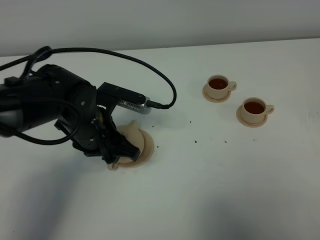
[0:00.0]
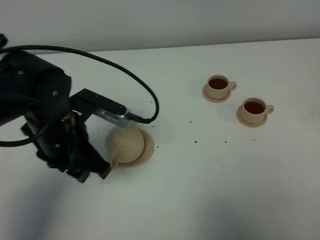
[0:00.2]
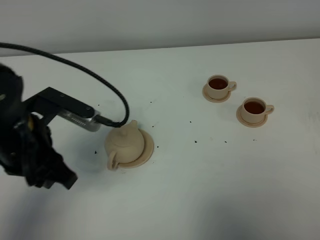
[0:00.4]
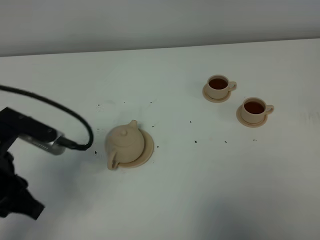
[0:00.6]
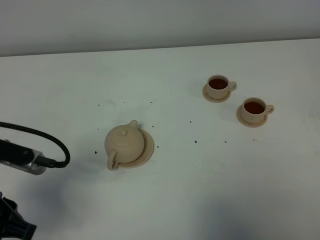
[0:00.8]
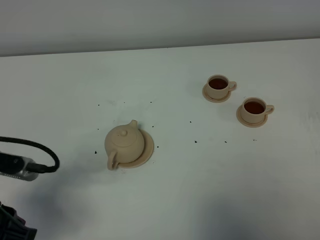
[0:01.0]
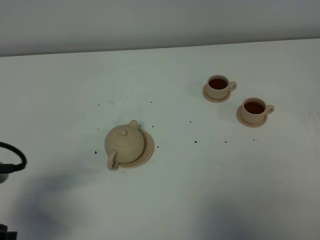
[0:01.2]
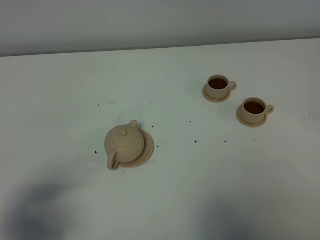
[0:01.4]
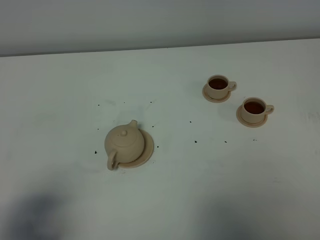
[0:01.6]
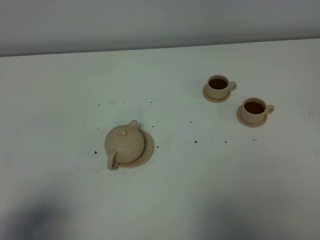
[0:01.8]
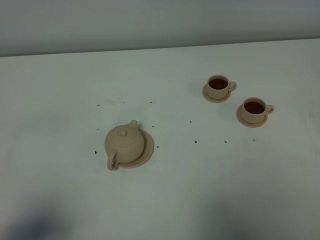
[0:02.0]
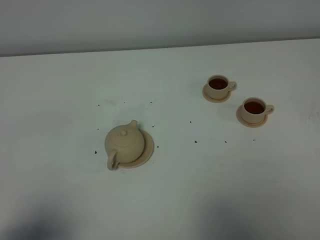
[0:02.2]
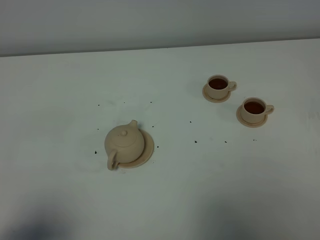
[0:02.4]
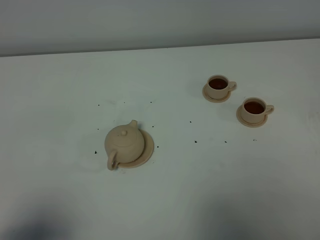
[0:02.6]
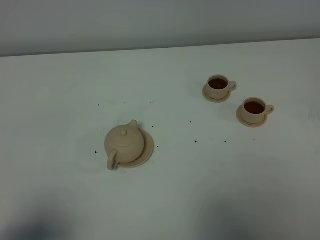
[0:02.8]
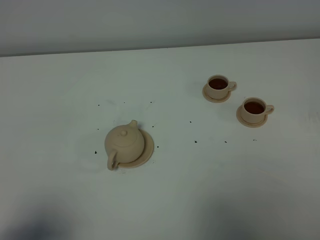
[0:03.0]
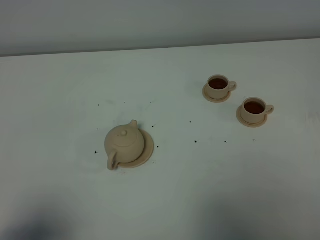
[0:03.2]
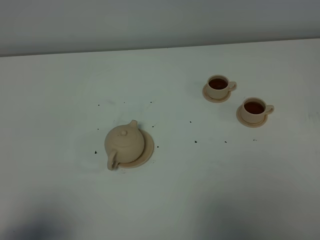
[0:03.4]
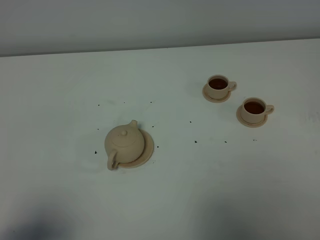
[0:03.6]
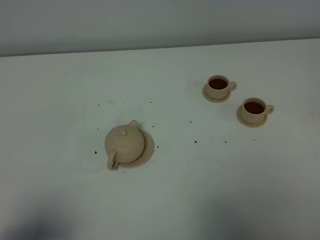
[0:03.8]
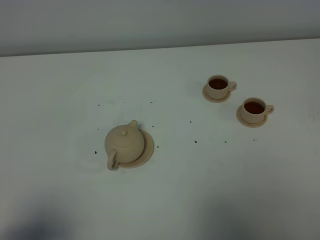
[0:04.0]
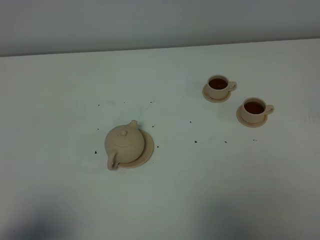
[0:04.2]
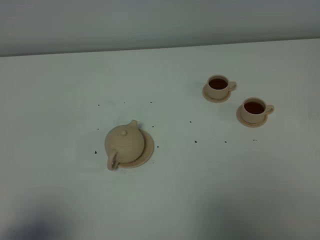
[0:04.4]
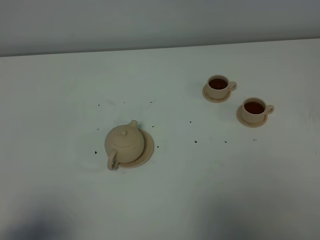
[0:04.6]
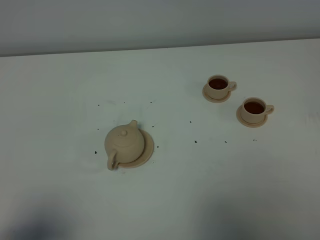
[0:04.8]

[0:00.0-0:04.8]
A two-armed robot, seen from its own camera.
Task of the whole recording: grasp the brown teapot and pour the tea into the two brown teacups one by one, put the brown teapot back in its original place.
0:00.0 to 0:01.6: The left gripper travels backward and to the left by roughly 30 cm.
0:03.2 to 0:04.8: Neither gripper changes place.

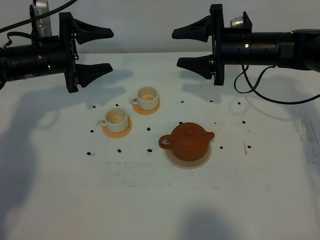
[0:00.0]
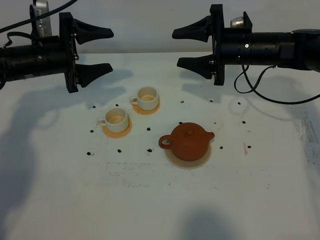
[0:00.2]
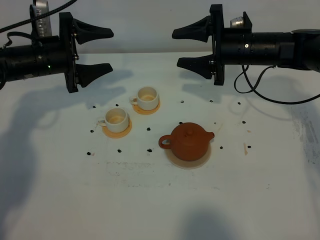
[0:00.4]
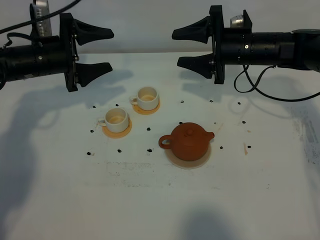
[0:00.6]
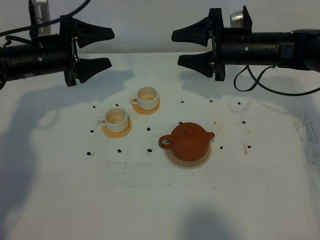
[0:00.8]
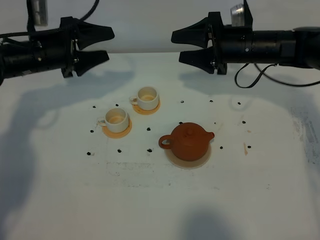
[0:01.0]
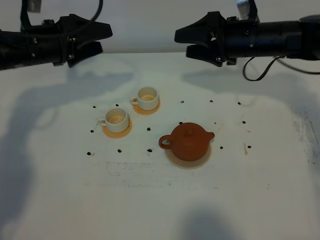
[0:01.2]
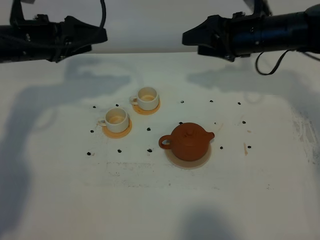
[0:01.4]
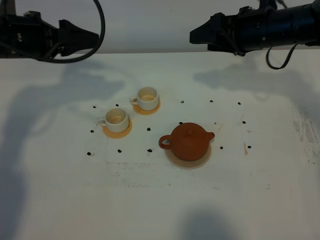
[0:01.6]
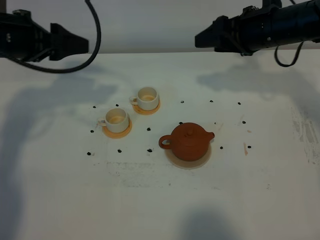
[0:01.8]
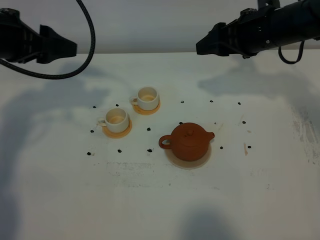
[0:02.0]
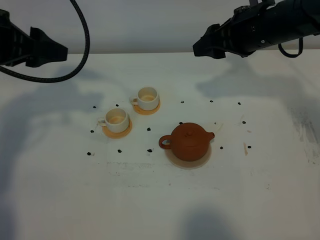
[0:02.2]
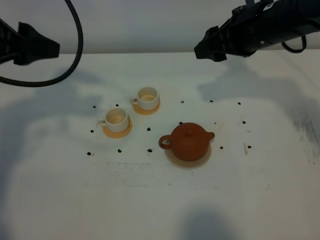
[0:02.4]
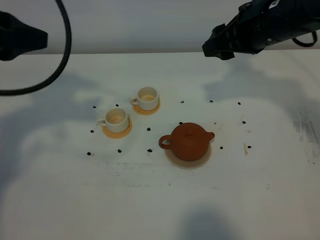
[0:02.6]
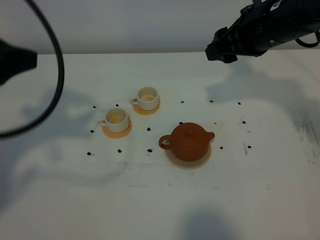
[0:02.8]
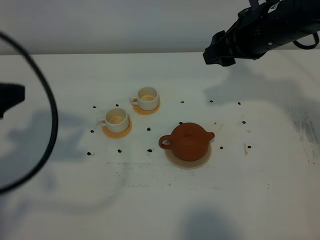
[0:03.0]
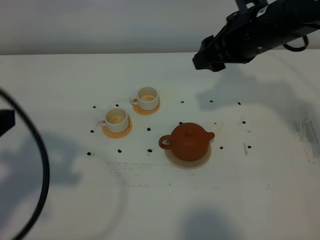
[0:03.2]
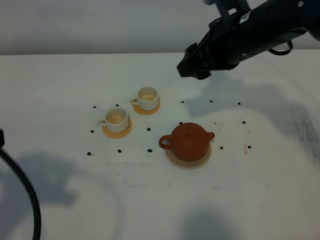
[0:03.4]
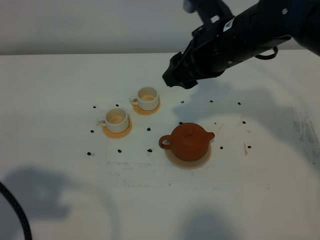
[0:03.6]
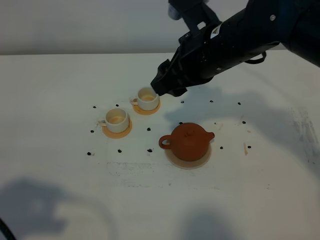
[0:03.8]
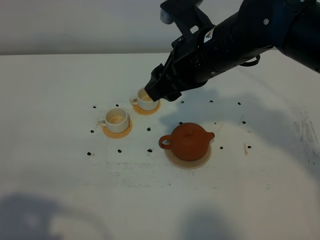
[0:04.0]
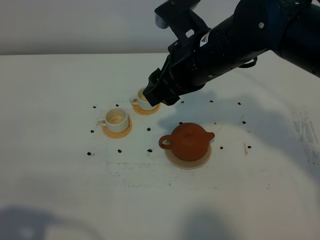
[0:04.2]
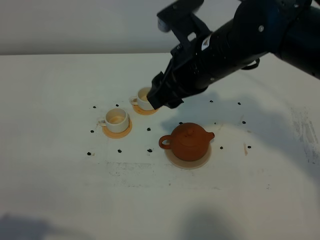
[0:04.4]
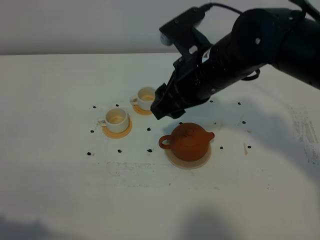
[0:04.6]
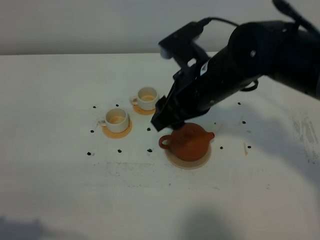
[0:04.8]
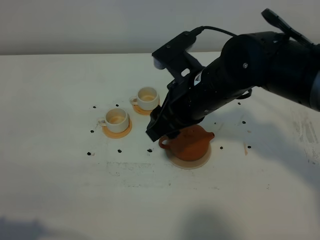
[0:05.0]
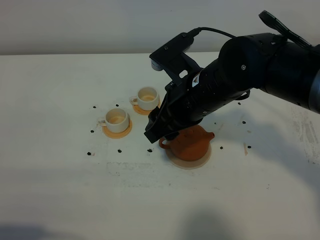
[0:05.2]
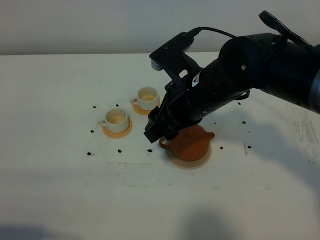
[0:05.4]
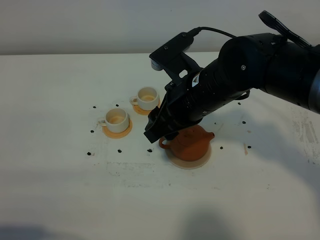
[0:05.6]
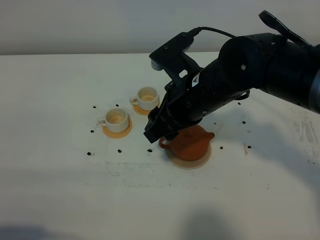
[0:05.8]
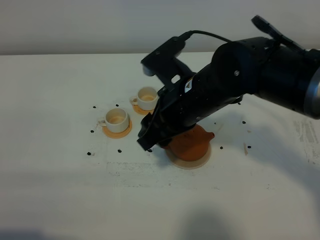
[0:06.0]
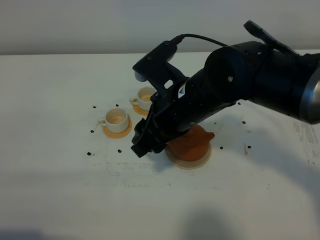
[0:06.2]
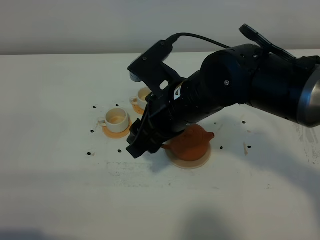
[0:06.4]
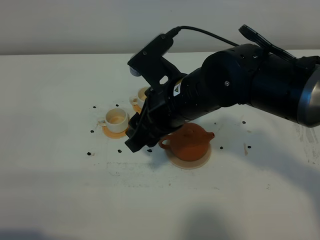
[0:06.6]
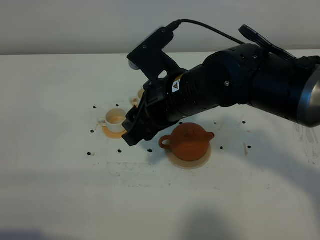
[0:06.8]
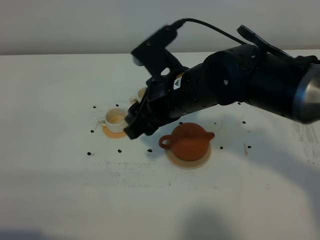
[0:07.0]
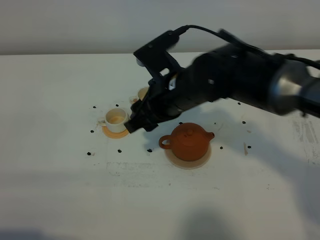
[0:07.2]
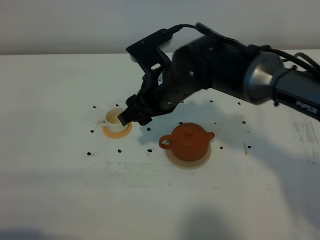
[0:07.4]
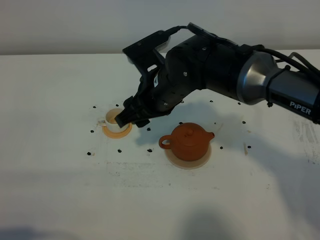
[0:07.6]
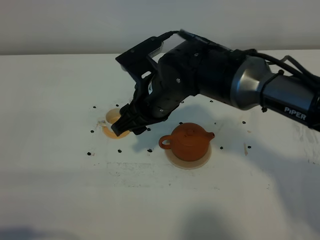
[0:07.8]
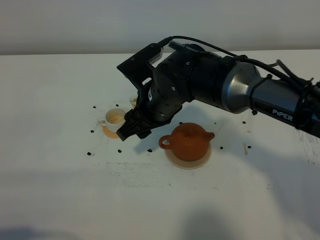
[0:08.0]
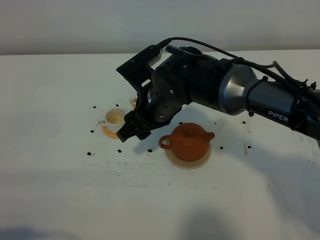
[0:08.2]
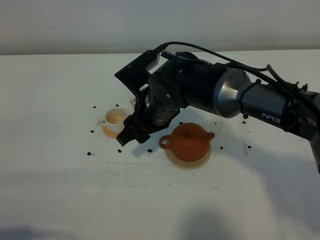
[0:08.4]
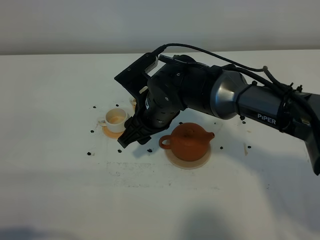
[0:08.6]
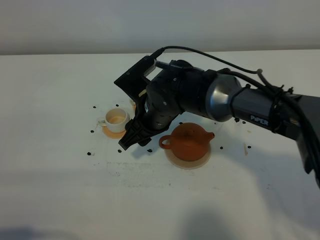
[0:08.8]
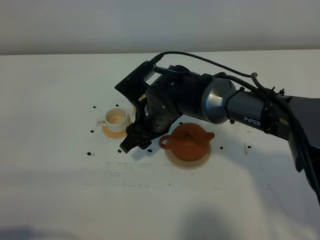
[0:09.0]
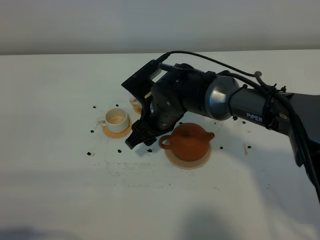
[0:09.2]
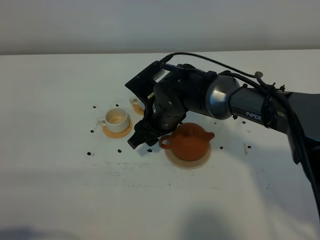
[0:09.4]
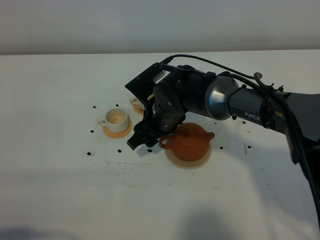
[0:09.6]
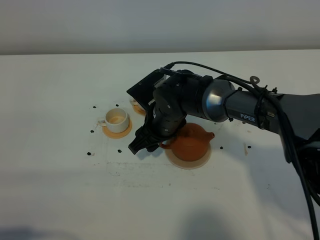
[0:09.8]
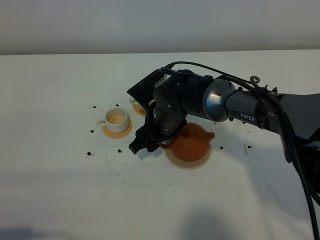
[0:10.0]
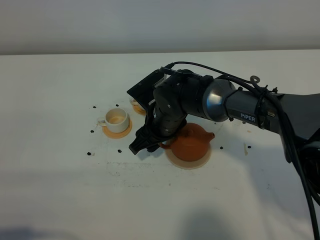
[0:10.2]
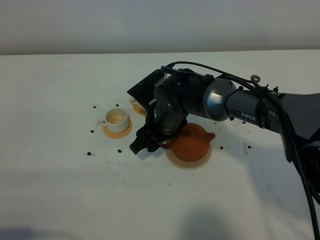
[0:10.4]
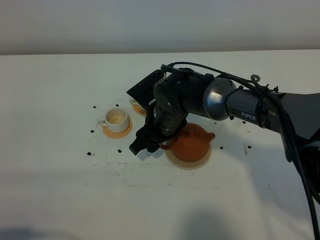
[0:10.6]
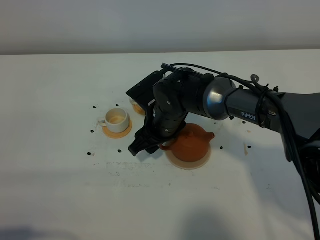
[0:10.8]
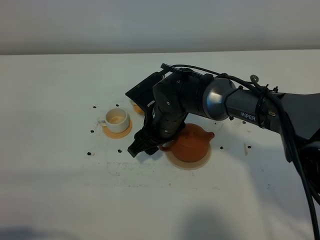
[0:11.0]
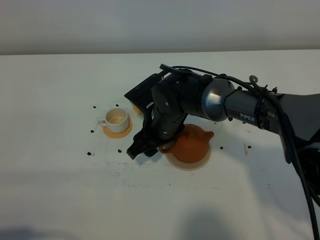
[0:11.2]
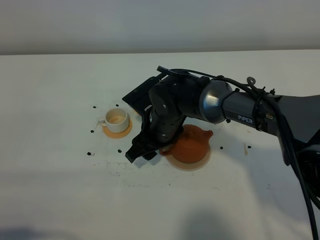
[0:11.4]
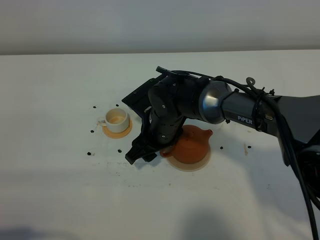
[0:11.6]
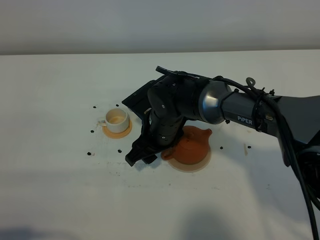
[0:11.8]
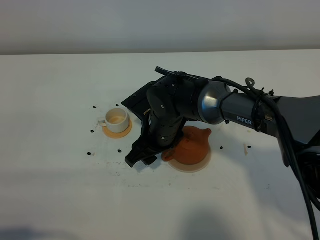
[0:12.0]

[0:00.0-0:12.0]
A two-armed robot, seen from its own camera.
Task of the whole recording: grasp the brown teapot and pour the tea into the two white teacups one by one, put the brown teapot back in its original place.
0:00.0 to 0:01.6: The left gripper heads upward, covering some 10 cm. Meanwhile the right gripper travels upward by about 5 cm.
0:01.6 to 0:03.0: The right gripper moves backward, about 5 cm. Meanwhile the left gripper heads backward, covering approximately 20 cm, and closes its fingers.
0:03.0 to 0:04.4: The left gripper heads backward and downward, covering about 20 cm; the right gripper heads to the left and backward, covering about 10 cm.
0:04.4 to 0:06.0: The right gripper moves roughly 5 cm; the left gripper closes up.
0:06.0 to 0:07.6: The right gripper shifts by approximately 5 cm.
0:07.6 to 0:09.0: The right gripper moves downward, approximately 5 cm.
0:09.0 to 0:12.0: There are only small adjustments of the grippers.

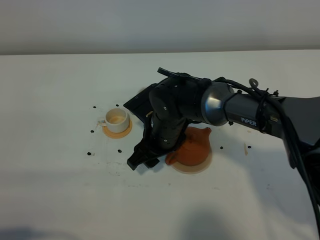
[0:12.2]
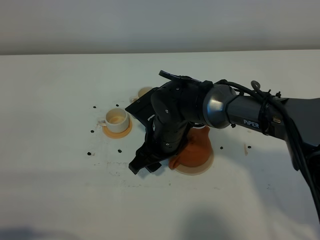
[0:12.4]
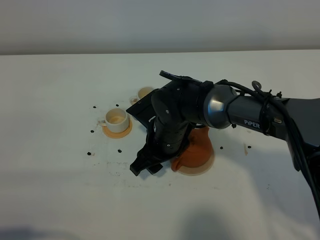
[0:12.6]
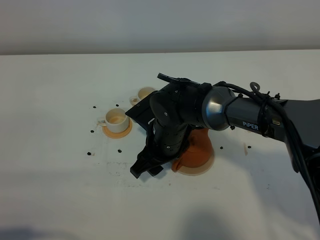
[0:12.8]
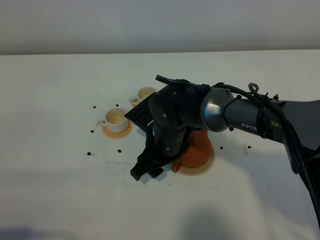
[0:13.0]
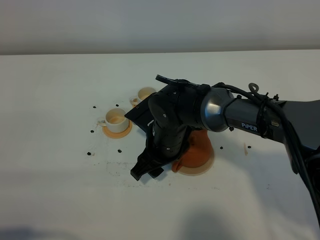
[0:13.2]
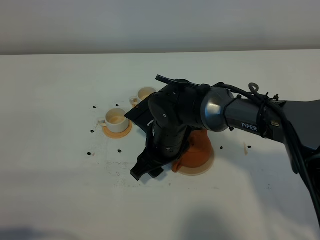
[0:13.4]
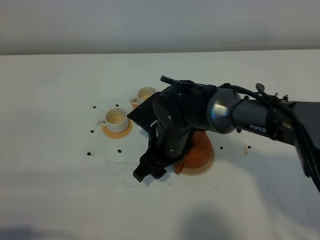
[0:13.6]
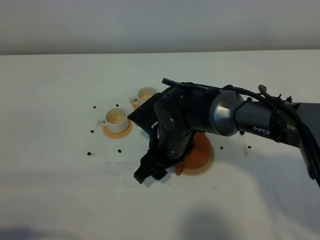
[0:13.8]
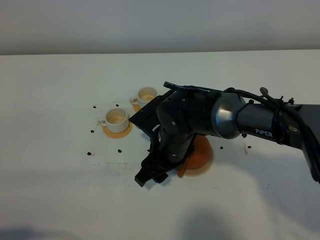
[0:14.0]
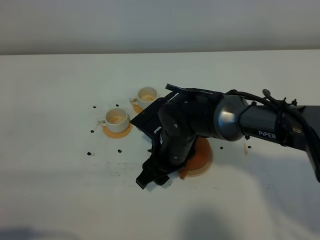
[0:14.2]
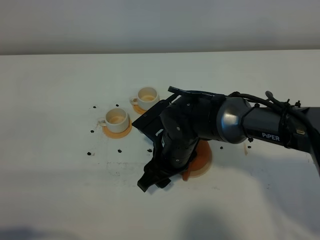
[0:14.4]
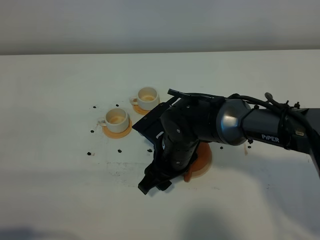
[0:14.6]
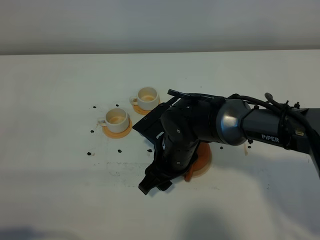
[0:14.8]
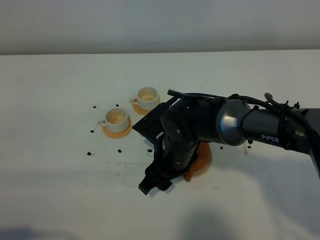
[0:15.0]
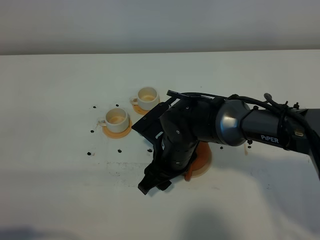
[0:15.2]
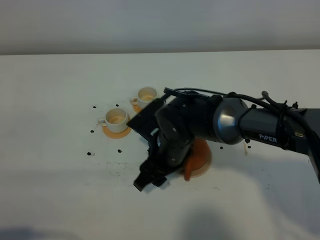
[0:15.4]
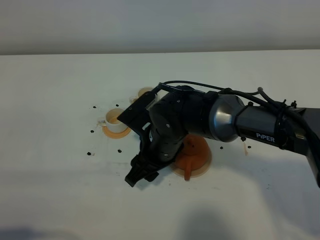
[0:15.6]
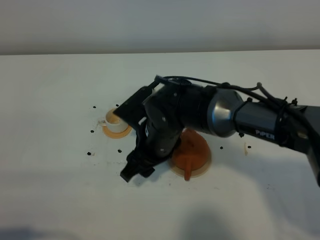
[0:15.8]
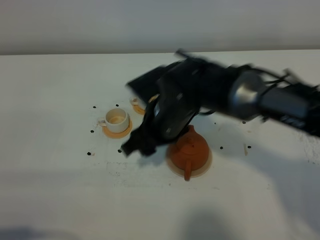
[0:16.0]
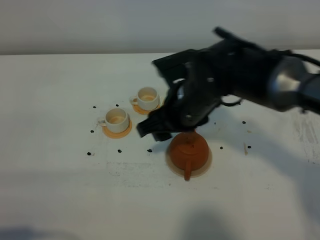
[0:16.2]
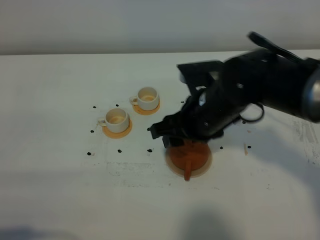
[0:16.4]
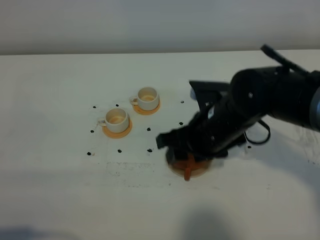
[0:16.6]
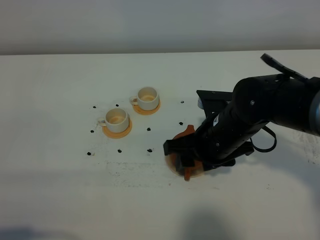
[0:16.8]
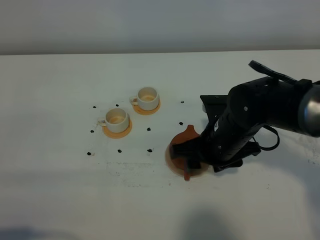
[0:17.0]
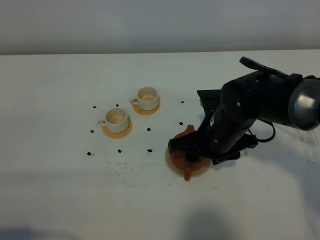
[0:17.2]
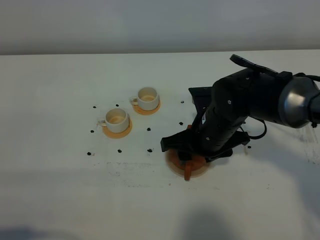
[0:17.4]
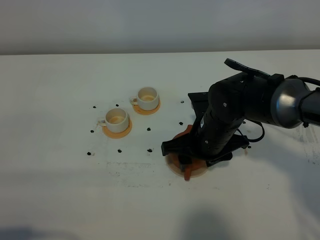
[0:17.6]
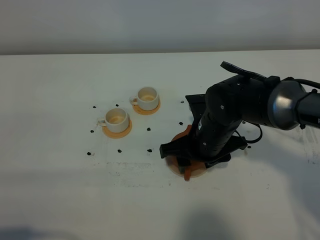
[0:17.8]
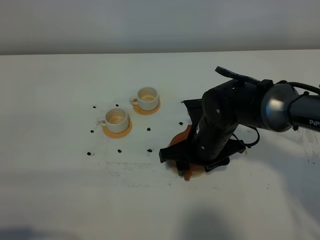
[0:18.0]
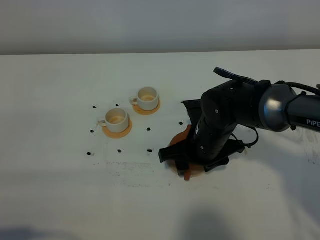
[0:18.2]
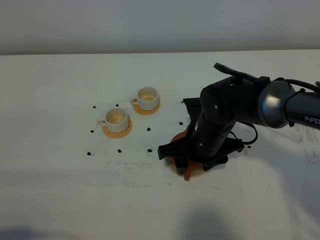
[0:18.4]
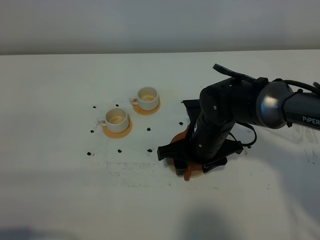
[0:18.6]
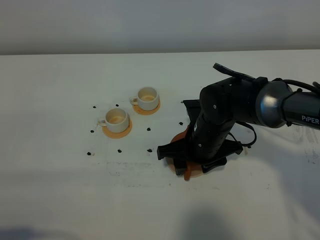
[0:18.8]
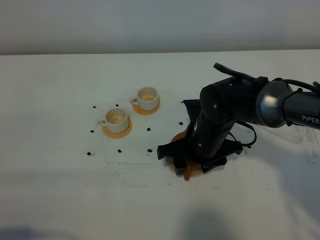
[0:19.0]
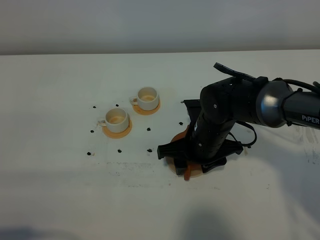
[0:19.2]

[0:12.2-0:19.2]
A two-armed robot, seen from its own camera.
Task of the whole recording: grasp the brown teapot and pour the tea into the two white teacups one by one, put the brown teapot back in its original place.
0:12.2 to 0:15.0: The grippers make only small movements.
0:15.0 to 0:16.4: The right gripper heads upward and to the right, covering roughly 10 cm.
0:16.4 to 0:17.8: The right gripper moves downward, roughly 5 cm.
0:17.8 to 0:19.2: The grippers make only small movements.
